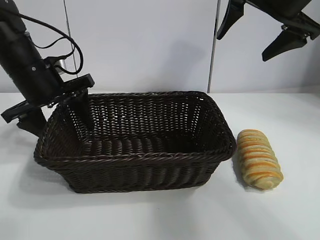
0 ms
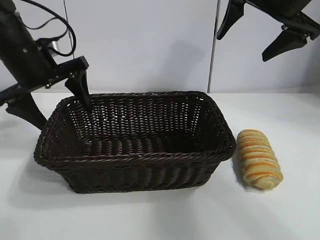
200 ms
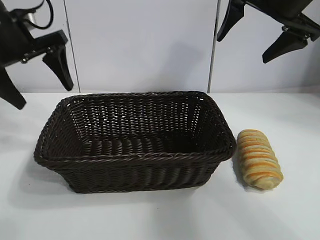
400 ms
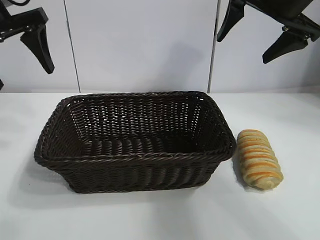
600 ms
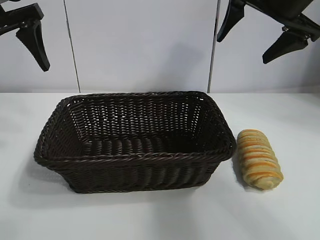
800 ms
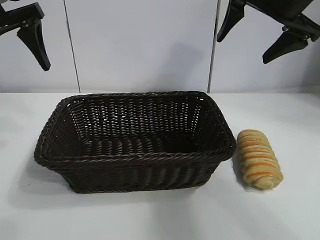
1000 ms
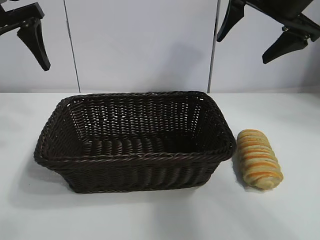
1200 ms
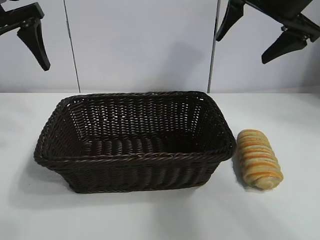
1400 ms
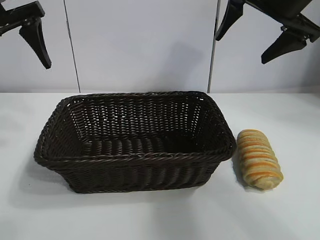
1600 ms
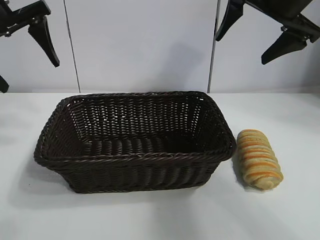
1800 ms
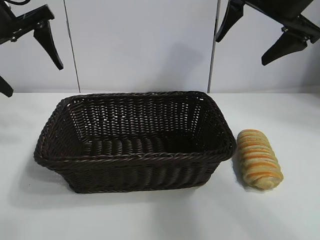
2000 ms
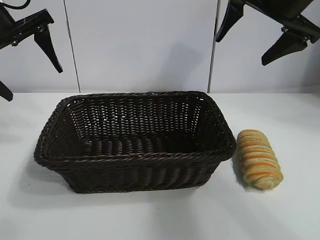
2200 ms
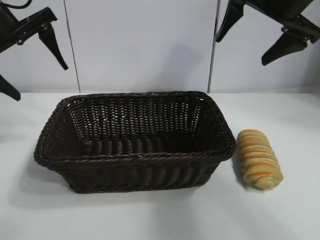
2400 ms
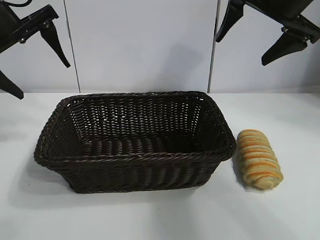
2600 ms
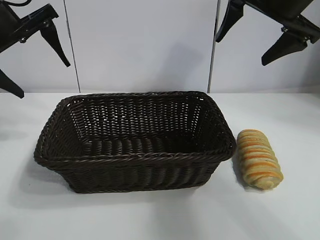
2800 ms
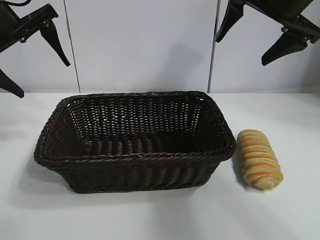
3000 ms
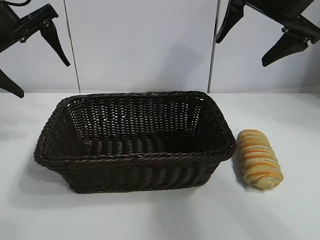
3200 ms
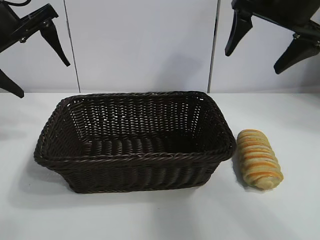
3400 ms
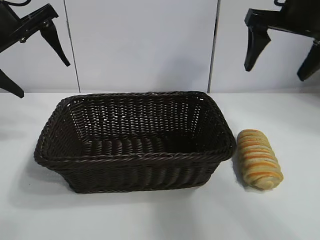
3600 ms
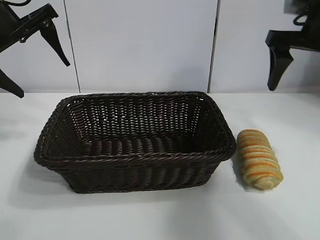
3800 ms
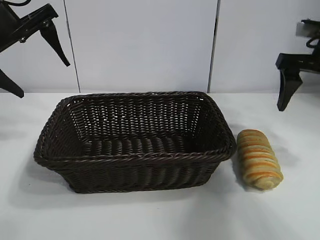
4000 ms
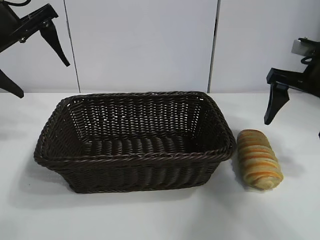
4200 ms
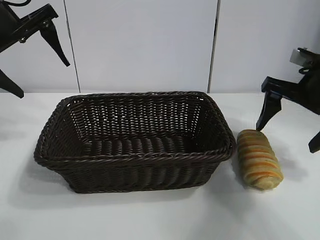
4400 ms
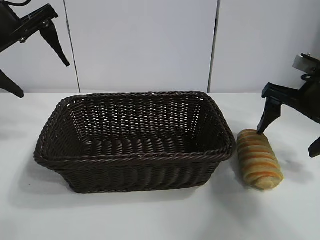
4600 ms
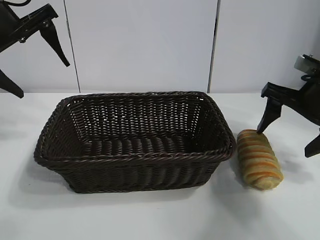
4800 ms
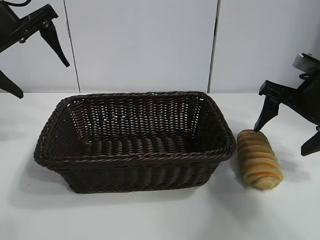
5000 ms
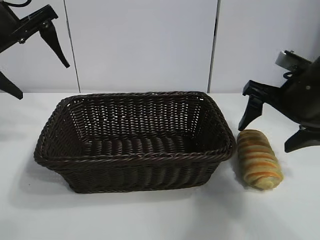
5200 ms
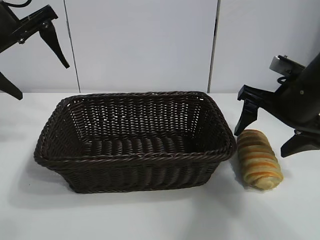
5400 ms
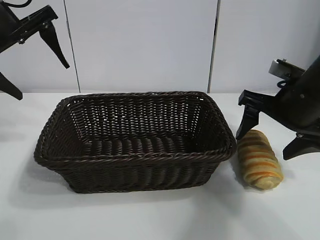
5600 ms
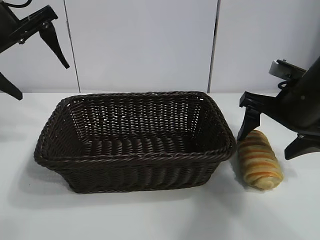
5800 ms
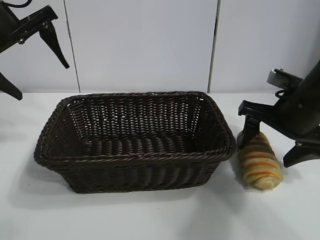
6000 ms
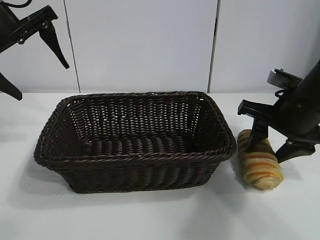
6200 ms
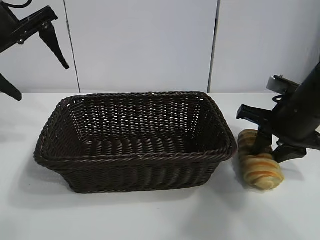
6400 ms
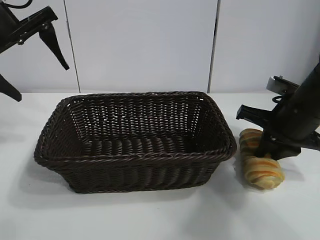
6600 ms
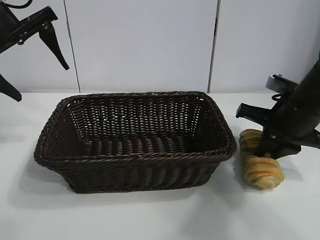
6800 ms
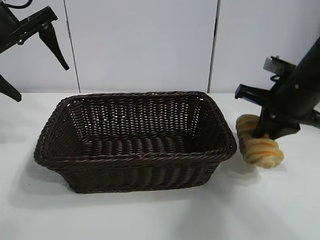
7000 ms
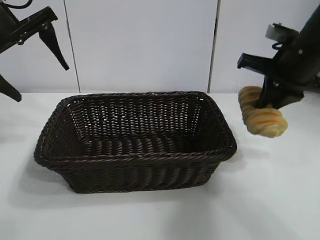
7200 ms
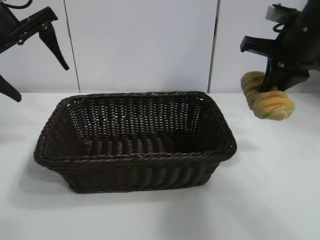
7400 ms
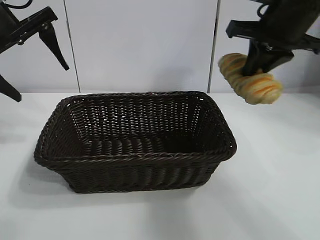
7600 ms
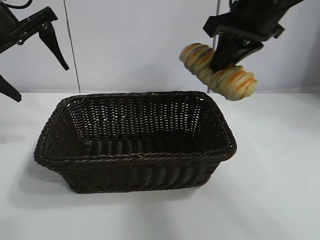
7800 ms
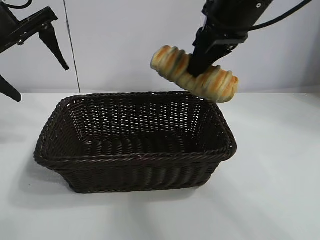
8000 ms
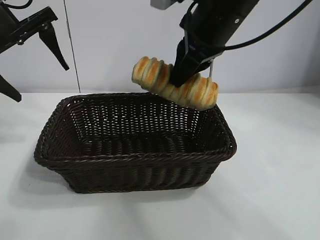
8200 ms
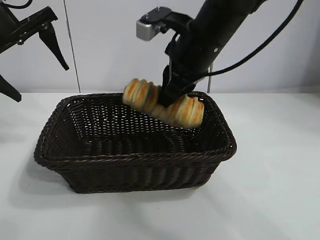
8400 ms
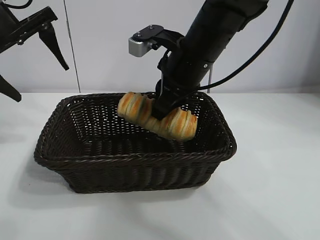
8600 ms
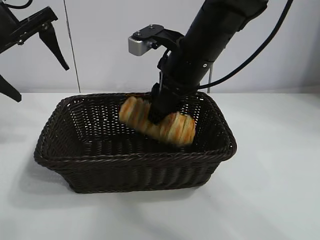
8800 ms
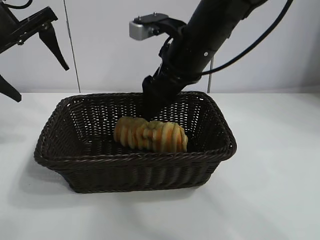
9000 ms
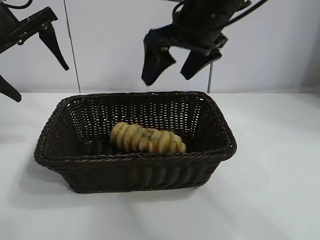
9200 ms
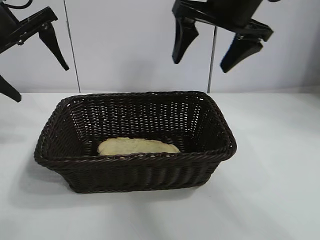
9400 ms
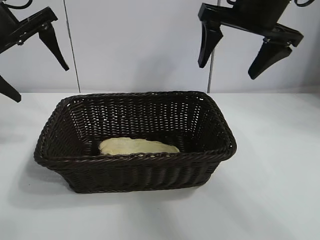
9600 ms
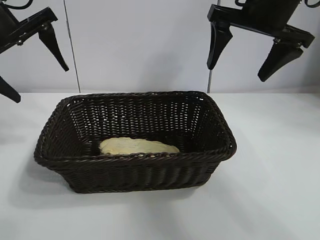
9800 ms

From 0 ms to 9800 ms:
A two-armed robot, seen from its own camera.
Task of the whole recording: pick up the long bread and put it into the basket.
Step, from 200 ms to 6600 ms: Grasp the long bread with right gripper.
Step, from 6800 ms to 9000 ms: Place the long bread in the basket with right gripper.

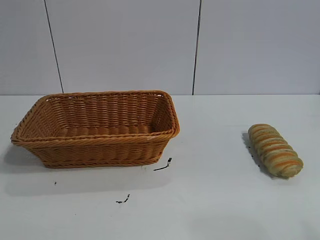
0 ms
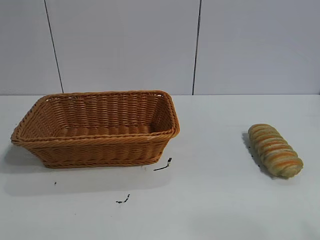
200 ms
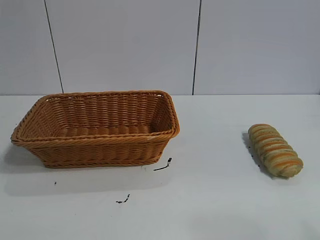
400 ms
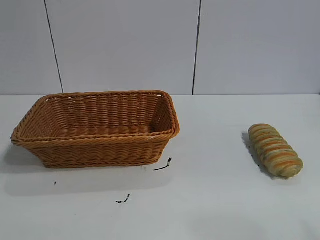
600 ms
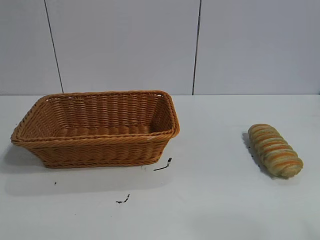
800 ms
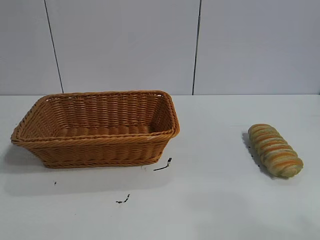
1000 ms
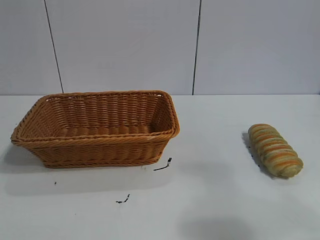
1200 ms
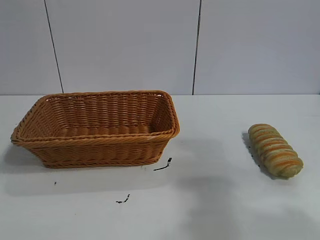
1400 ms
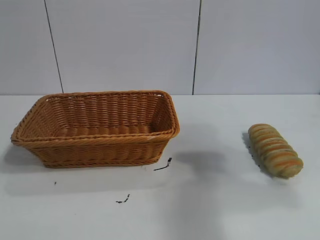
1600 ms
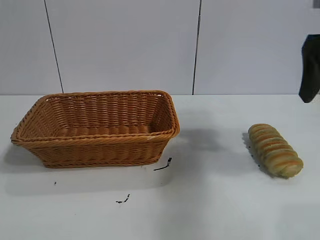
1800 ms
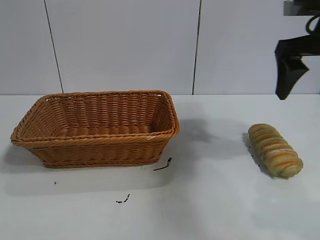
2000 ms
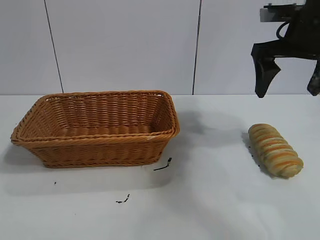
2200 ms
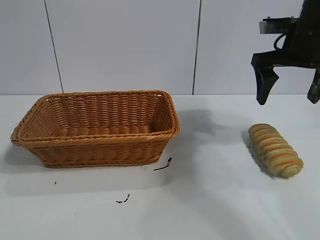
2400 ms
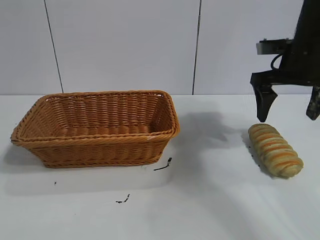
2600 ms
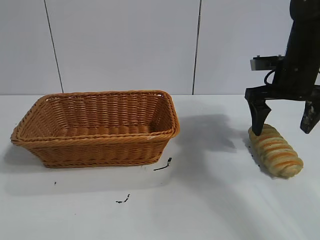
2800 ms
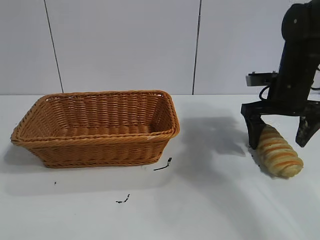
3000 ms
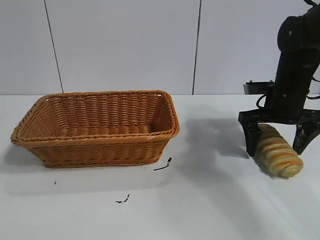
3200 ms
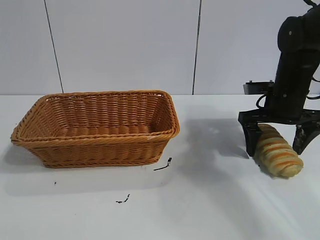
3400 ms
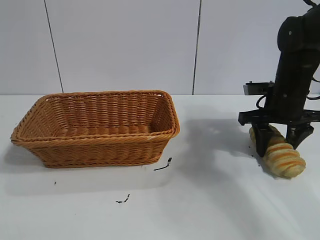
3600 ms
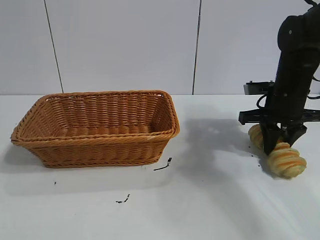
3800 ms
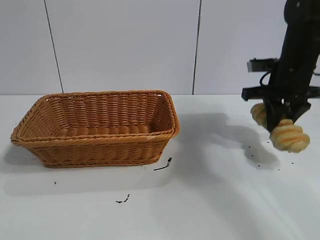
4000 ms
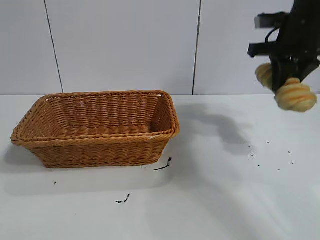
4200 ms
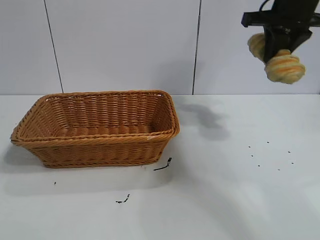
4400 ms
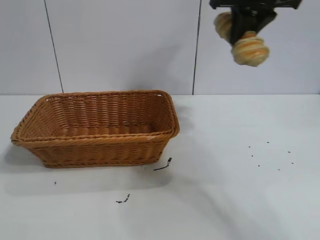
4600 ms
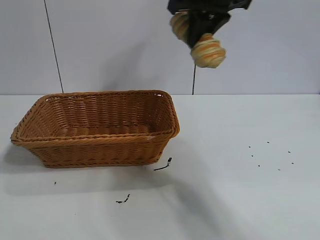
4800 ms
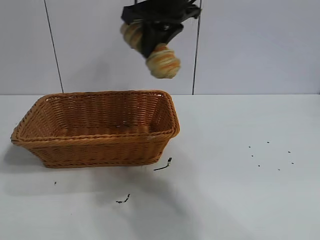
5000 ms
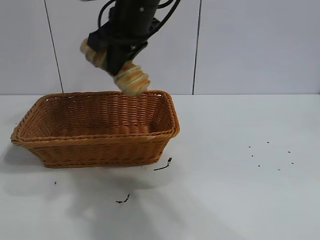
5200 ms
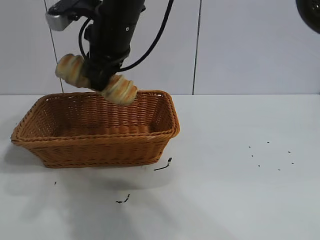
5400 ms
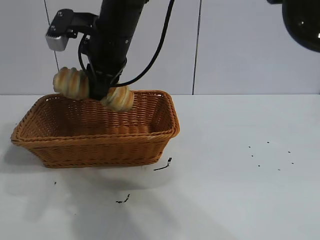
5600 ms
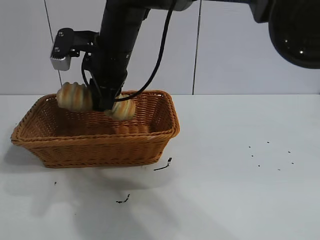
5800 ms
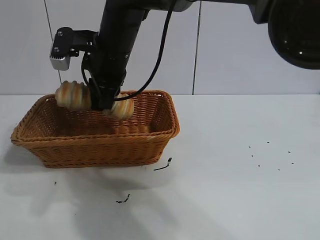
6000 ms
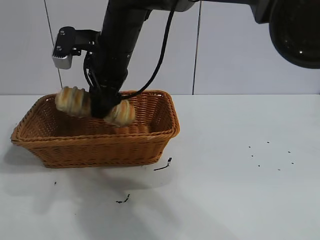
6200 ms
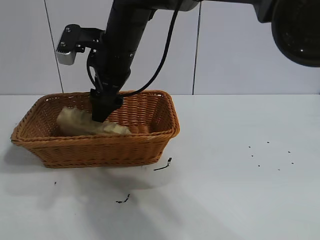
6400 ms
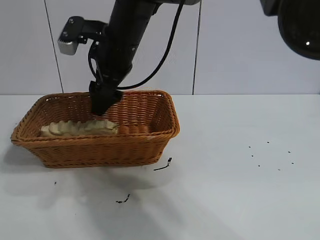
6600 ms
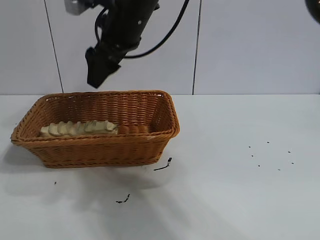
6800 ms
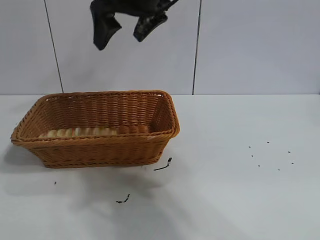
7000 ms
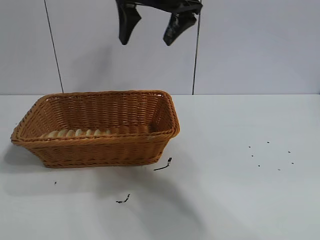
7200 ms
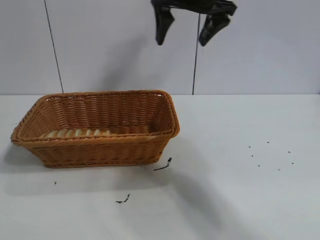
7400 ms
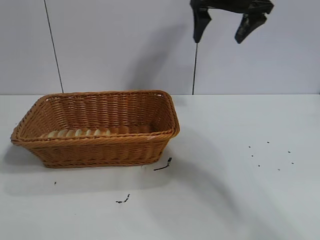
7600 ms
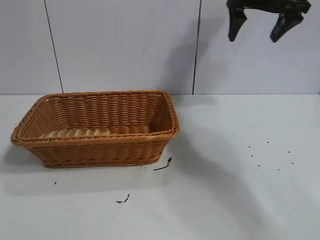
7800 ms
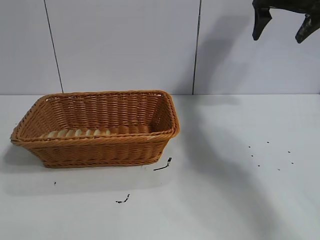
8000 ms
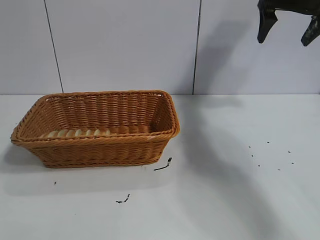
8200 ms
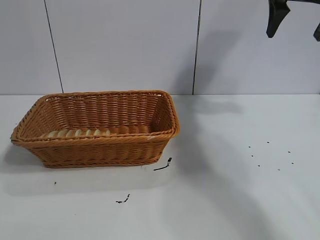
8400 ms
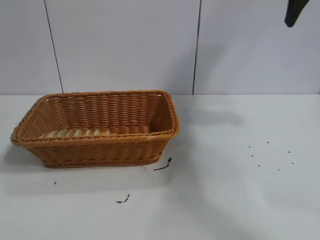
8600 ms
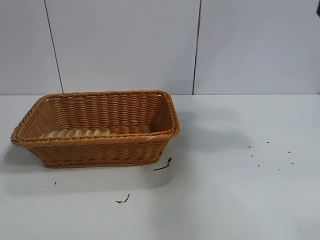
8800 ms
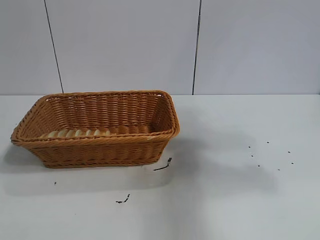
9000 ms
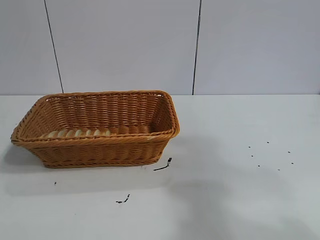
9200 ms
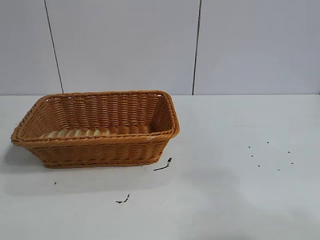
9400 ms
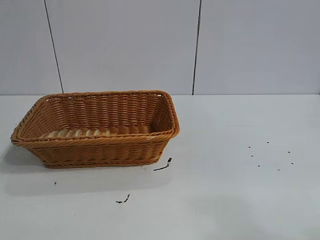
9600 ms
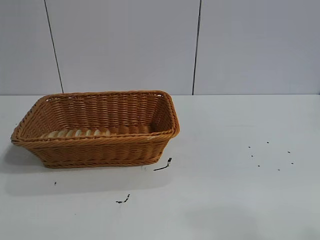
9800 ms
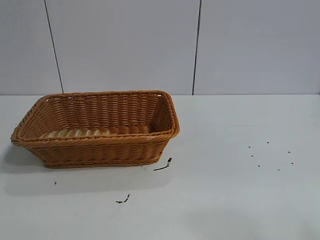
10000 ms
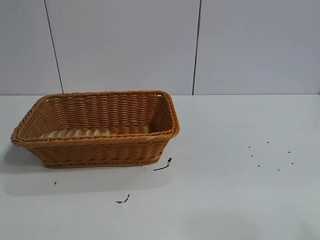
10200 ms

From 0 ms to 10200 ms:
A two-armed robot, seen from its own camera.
Task of the whole recording: pick up the long bread and put it into the basket.
Step, from 1800 ms to 3800 ms: Grasp the long bread with right gripper.
Step, from 4000 ms to 6800 ms: Place the long bread in the basket with right gripper.
